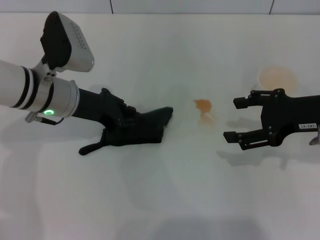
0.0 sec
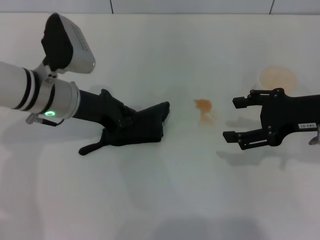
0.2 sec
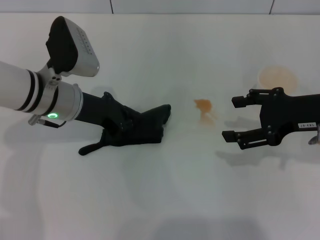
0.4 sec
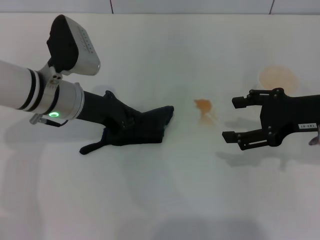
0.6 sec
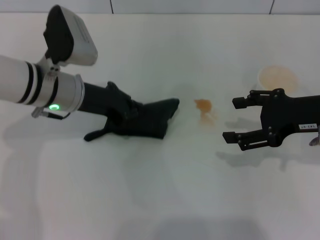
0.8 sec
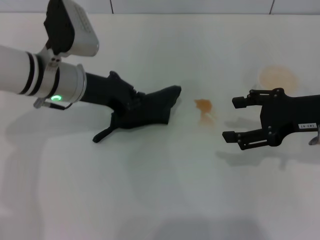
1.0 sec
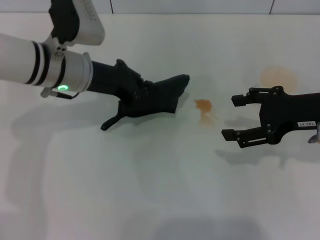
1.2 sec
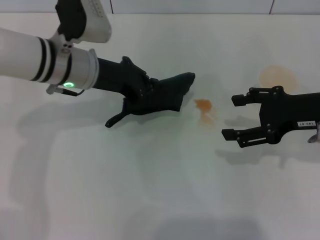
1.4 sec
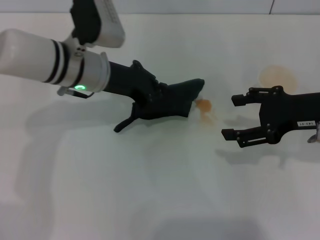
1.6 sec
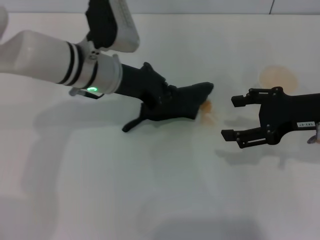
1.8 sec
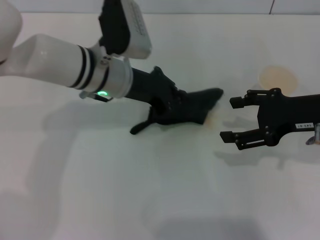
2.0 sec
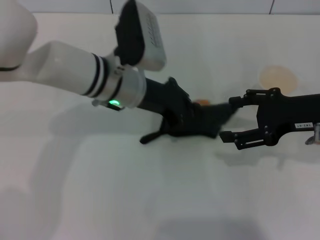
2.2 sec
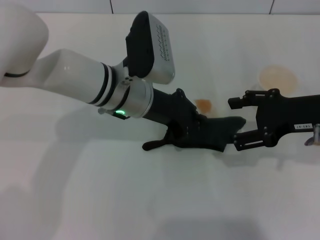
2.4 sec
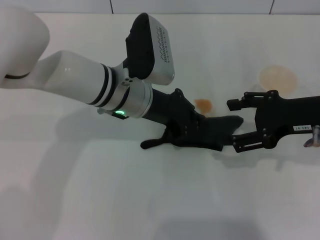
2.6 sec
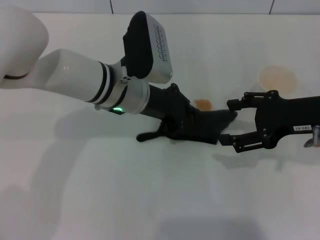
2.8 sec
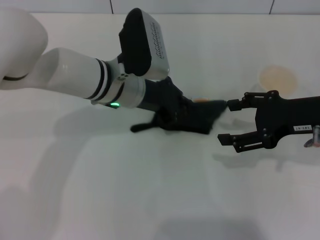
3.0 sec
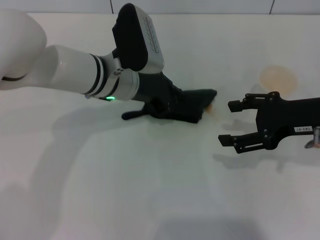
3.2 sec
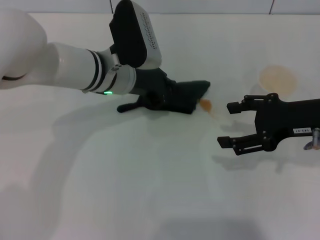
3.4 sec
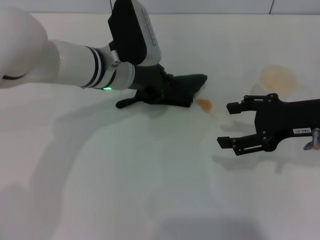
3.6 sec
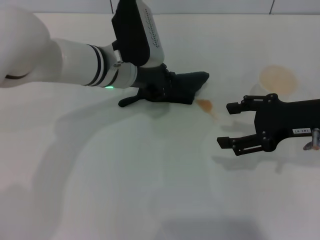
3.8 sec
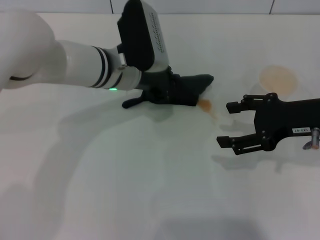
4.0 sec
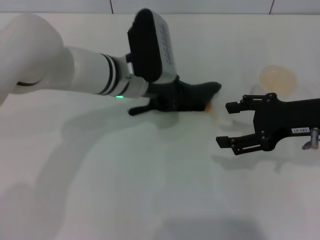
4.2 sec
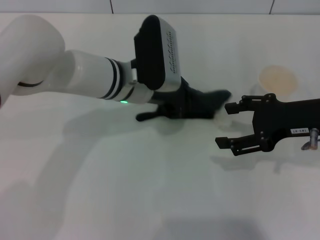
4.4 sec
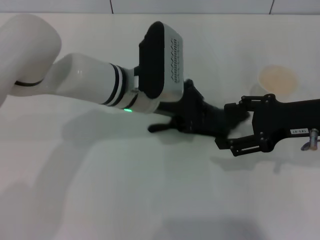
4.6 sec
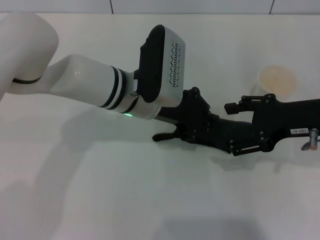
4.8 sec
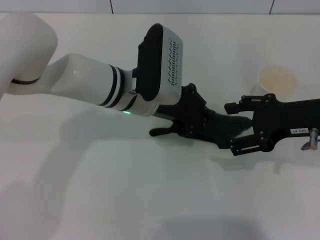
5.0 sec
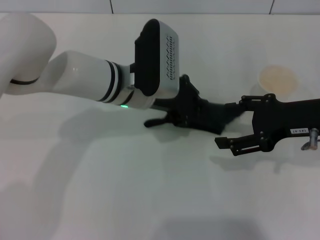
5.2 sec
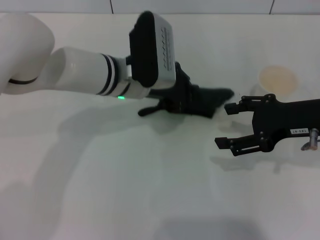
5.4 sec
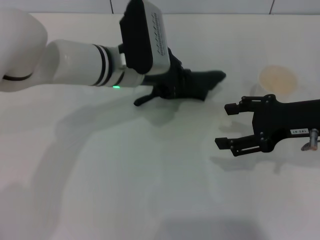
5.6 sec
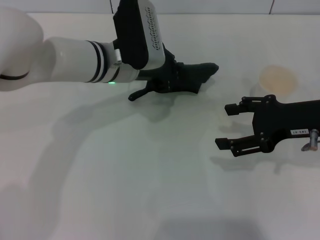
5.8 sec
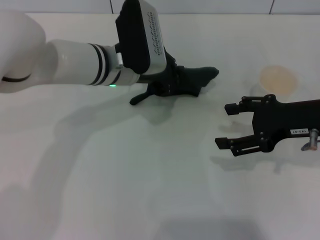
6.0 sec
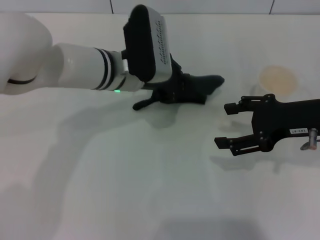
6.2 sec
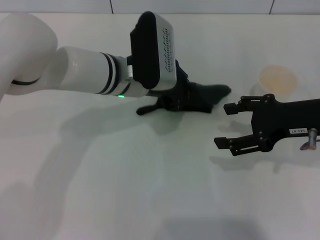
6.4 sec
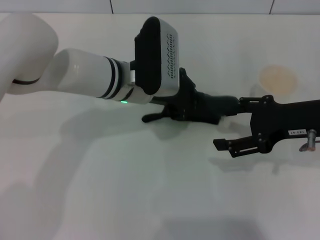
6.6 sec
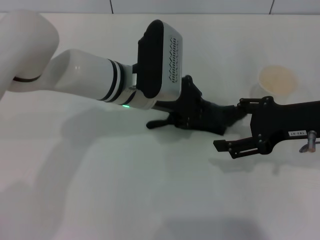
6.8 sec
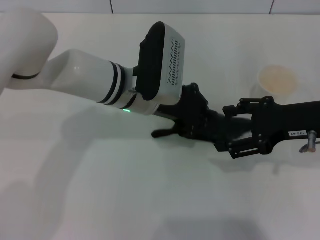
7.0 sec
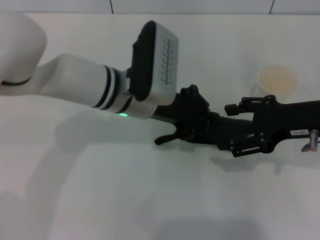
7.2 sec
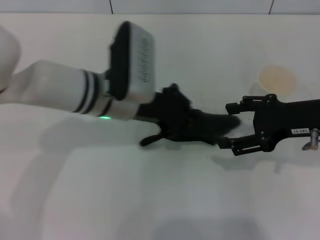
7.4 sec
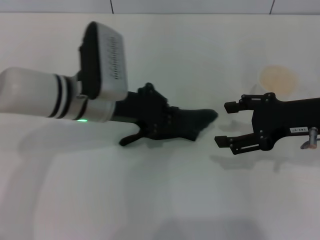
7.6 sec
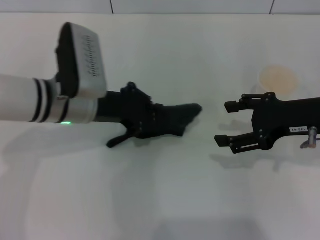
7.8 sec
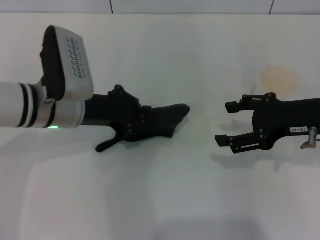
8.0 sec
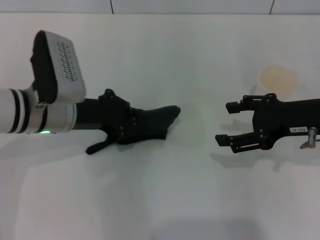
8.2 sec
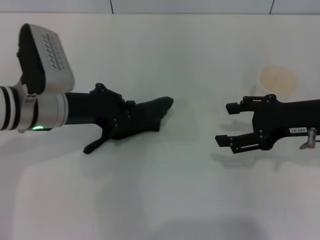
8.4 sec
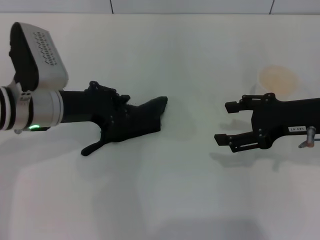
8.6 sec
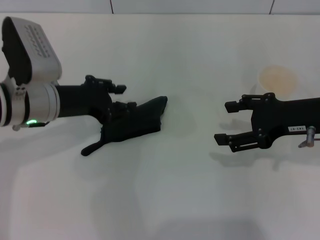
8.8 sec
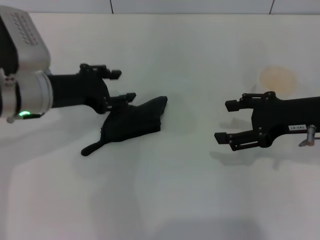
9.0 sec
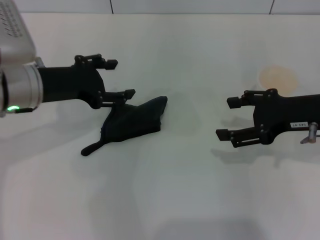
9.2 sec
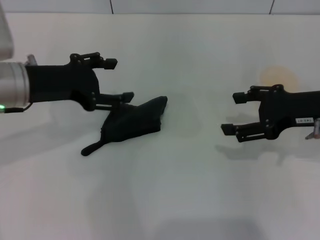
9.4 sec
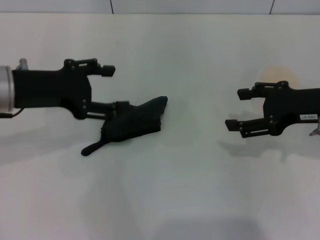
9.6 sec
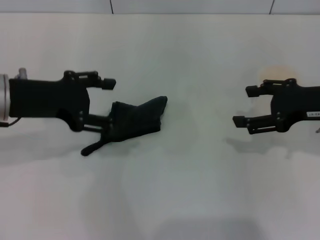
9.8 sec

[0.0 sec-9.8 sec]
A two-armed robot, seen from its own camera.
Step, 0.6 sec to 7.8 sec: Wipe the stains off the table with the left gripper.
0.0 sec to 1.4 sec: The left gripper closes.
1.4 sec to 2.8 sec: The left gripper is displaced to the right by roughly 5 cm.
2.8 sec to 5.6 sec: The grippers stay close to where they were, moving slightly.
5.6 sec to 7.0 sec: The grippers stay close to where they were, moving slightly.
7.0 sec to 8.4 sec: The left gripper travels to the left by approximately 15 cm.
8.4 sec to 9.8 sec: The left gripper heads upward, covering roughly 5 cm, and opens.

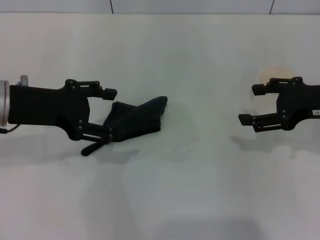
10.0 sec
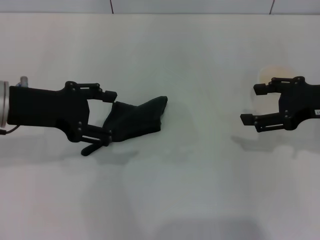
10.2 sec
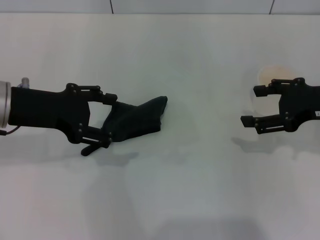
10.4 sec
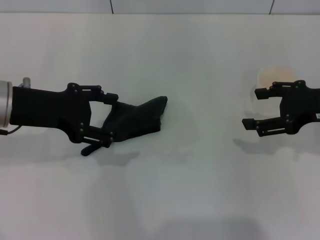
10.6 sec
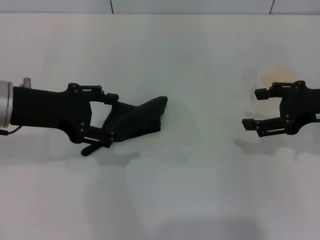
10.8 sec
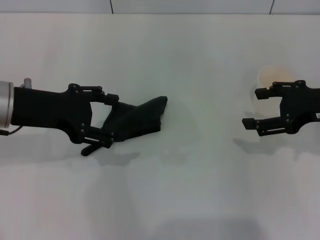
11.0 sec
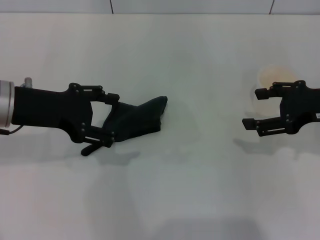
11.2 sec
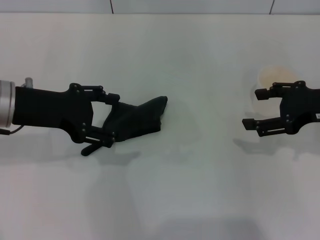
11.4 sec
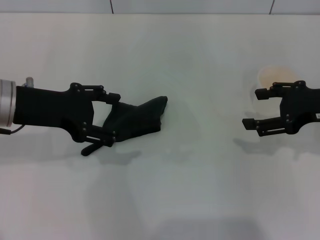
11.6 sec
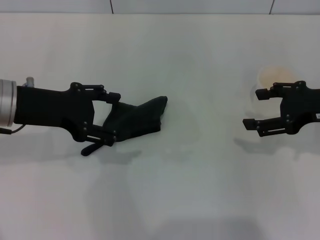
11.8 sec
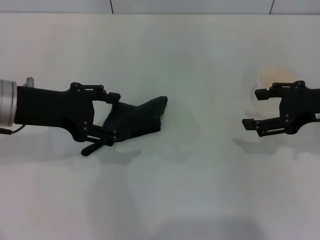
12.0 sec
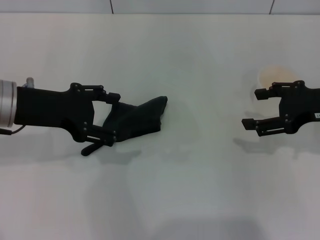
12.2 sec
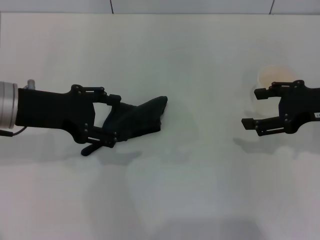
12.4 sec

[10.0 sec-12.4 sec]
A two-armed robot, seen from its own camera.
10.0 sec to 12.4 sec: Neither gripper changes place.

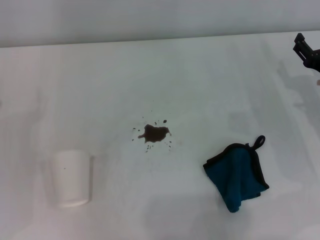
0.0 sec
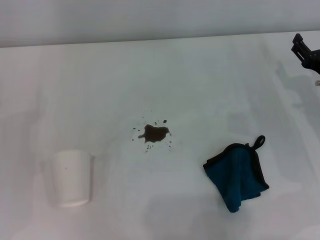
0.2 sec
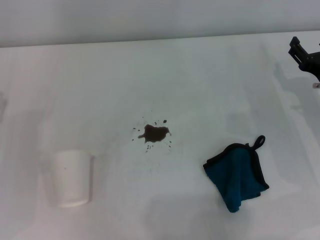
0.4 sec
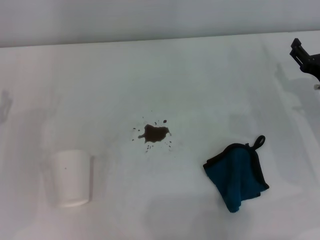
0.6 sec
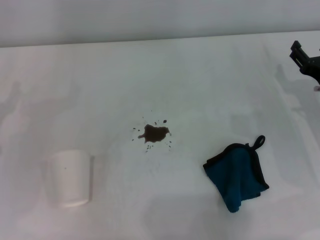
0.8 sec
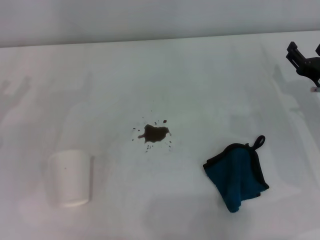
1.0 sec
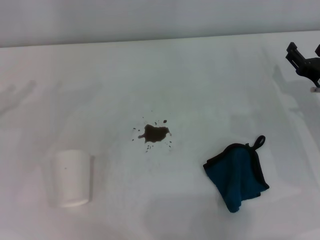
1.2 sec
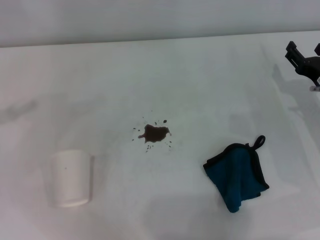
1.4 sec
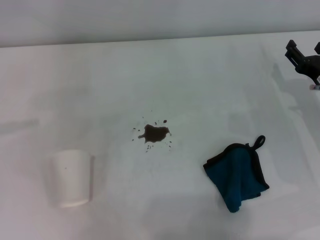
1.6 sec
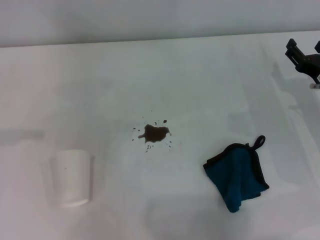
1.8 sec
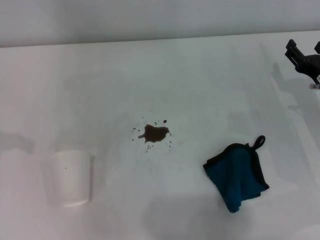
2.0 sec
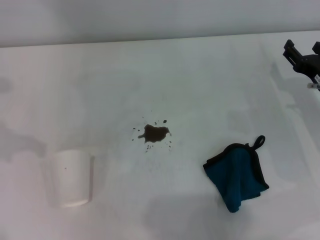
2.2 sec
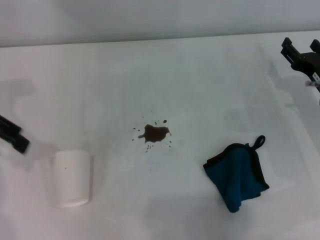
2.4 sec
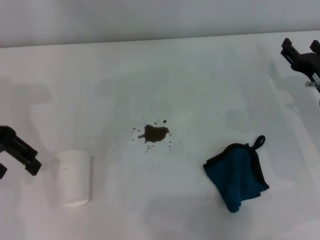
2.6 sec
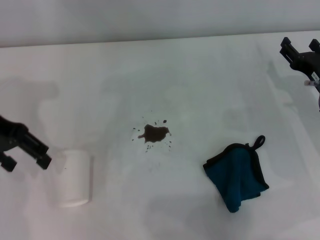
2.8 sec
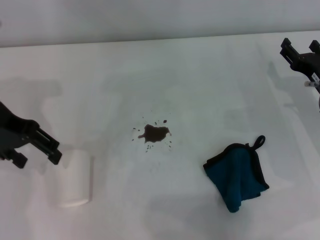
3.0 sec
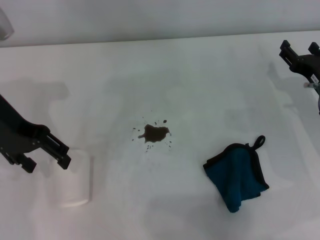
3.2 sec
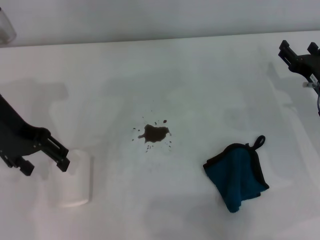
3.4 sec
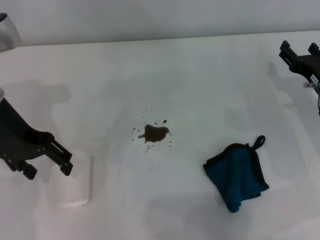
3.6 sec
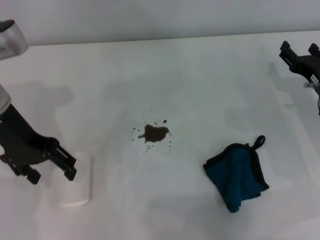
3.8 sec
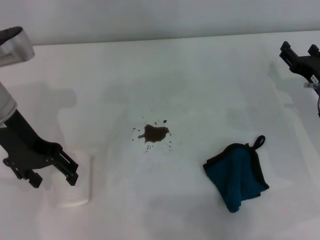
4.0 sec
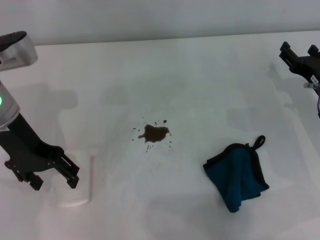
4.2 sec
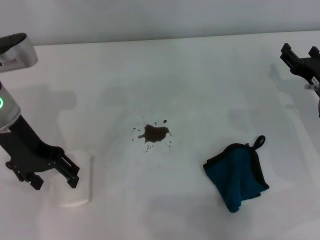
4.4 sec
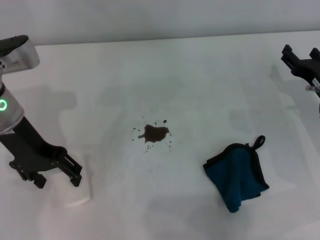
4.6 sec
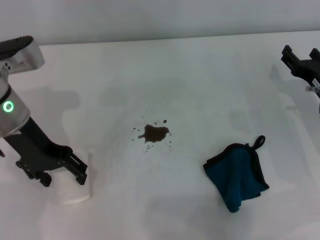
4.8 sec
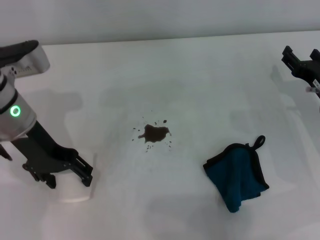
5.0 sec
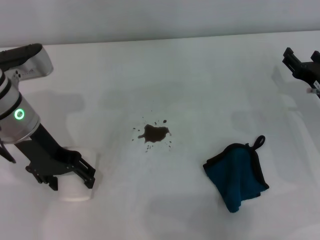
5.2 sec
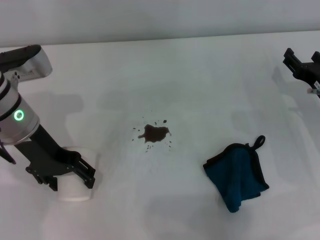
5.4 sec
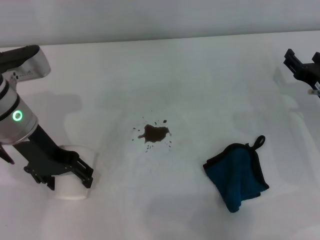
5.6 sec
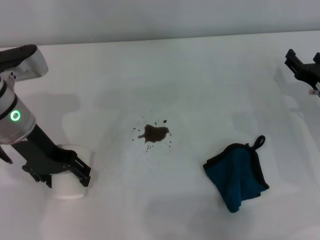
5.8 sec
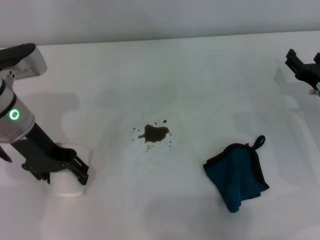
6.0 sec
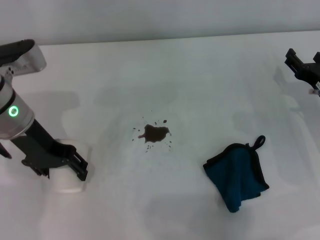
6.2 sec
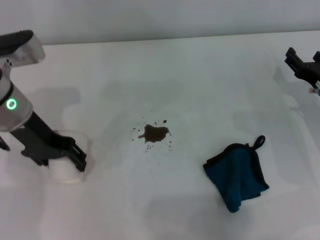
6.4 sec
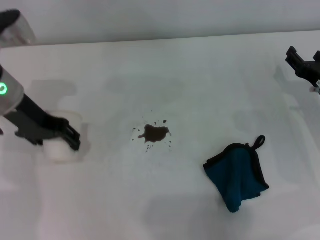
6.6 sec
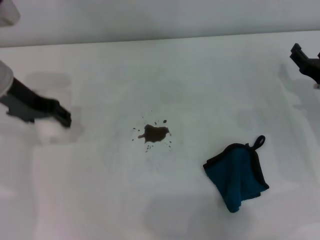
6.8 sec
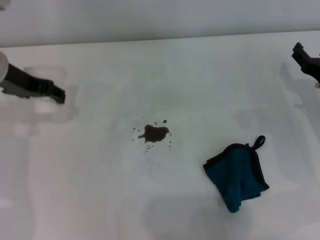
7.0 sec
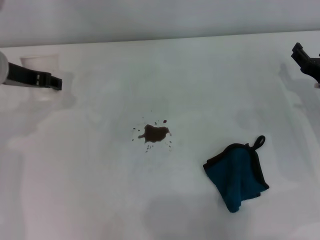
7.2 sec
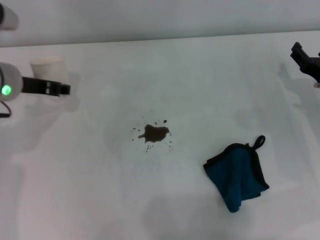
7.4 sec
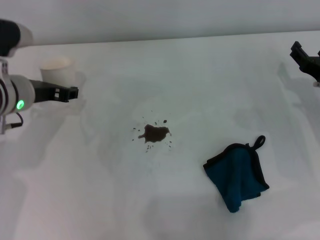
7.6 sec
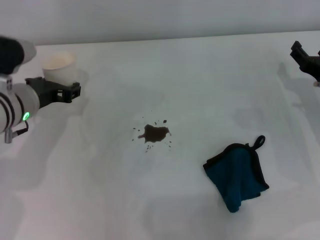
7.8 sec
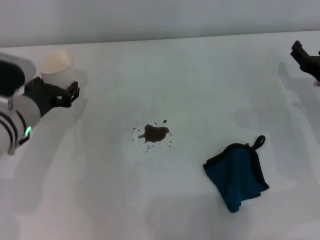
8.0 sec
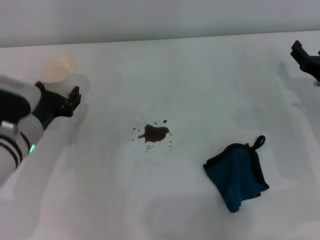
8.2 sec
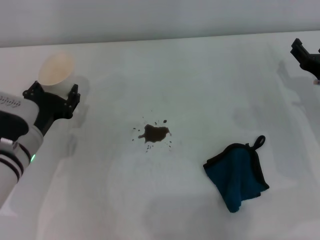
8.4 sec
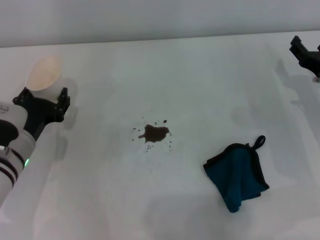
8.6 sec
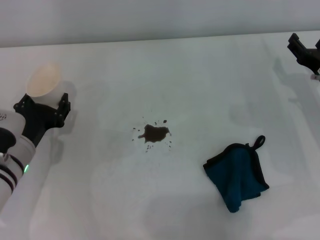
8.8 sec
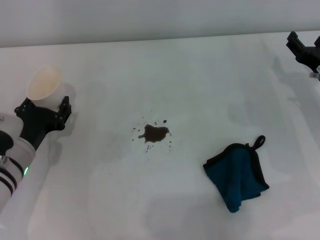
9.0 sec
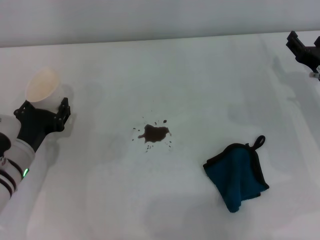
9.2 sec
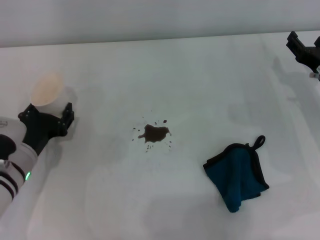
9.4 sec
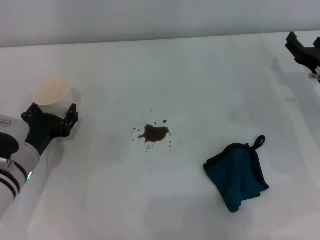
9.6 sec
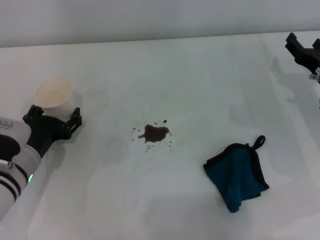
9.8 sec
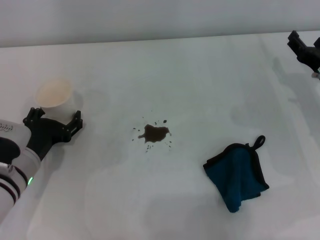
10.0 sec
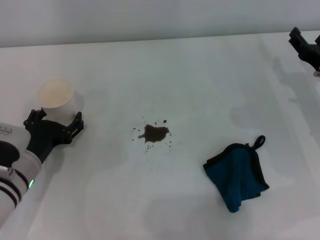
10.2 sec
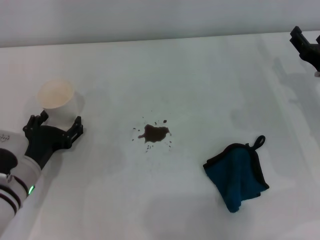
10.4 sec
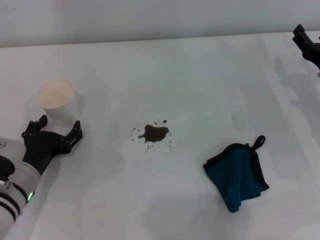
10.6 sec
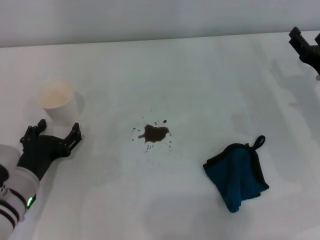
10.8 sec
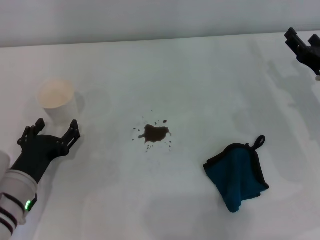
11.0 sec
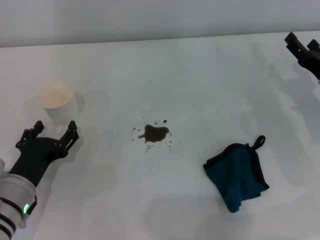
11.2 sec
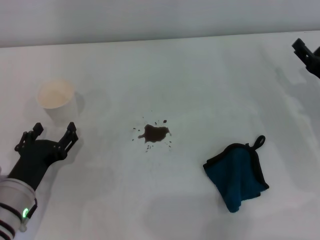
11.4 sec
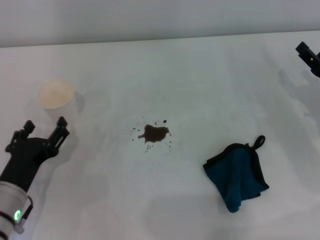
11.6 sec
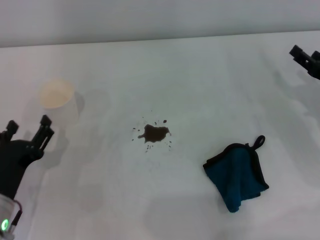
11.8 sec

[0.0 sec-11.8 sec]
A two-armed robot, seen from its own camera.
Step, 0.0 sec to 6.0 sec: Grasp the paper cup with the left gripper.
Step, 6.4 sec to 10.2 sec: Stand the paper cup upright with the left gripper.
1.4 sec to 3.0 sec: The left gripper goes roughly 15 cm to the right.
3.0 sec to 4.4 sec: The left gripper shifts by about 5 cm.
4.4 sec to 6.0 sec: The grippers make only small movements.
6.0 sec to 7.4 sec: The left gripper closes its fingers.
7.4 sec to 8.8 sec: The left gripper heads downward and backward, covering about 15 cm.
8.8 sec to 10.4 sec: The left gripper opens up.
10.4 sec to 11.8 sec: The left gripper is displaced backward by about 5 cm.
